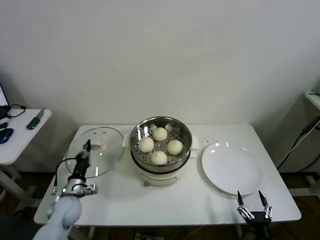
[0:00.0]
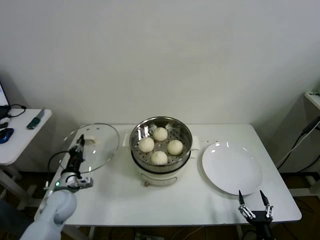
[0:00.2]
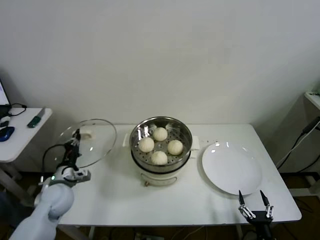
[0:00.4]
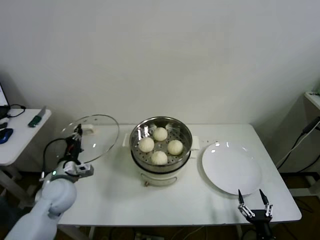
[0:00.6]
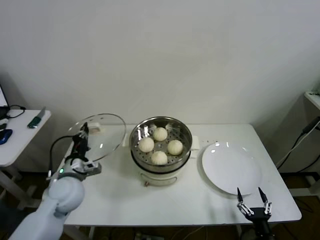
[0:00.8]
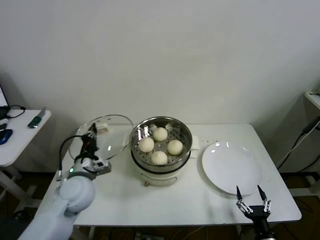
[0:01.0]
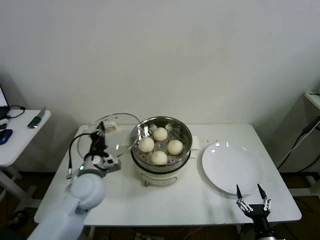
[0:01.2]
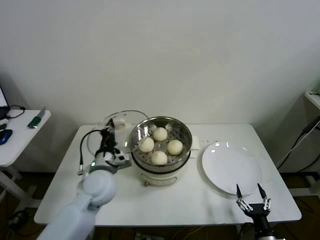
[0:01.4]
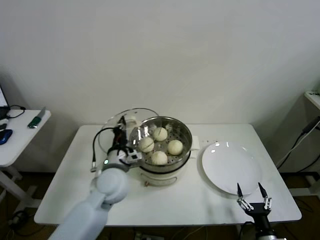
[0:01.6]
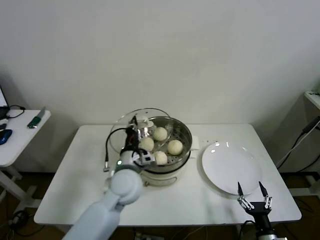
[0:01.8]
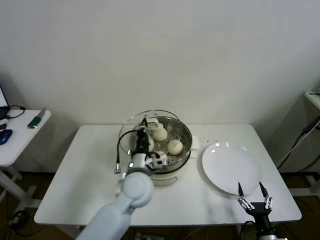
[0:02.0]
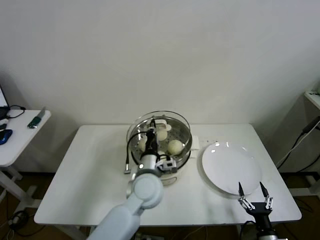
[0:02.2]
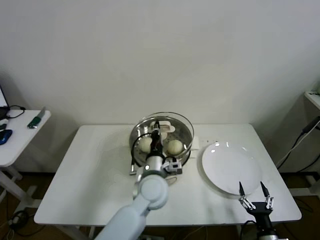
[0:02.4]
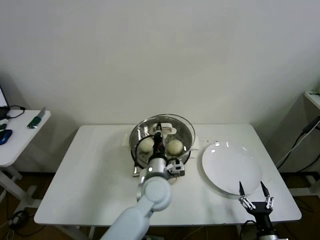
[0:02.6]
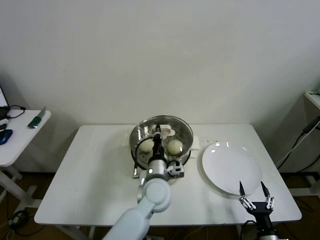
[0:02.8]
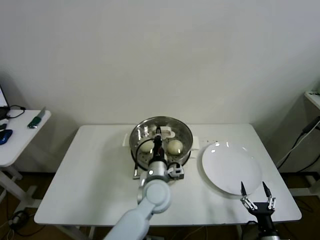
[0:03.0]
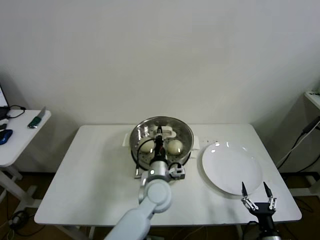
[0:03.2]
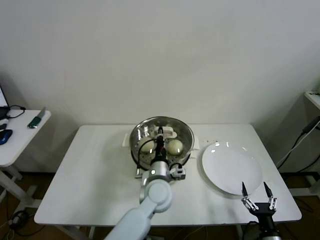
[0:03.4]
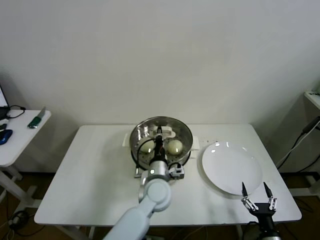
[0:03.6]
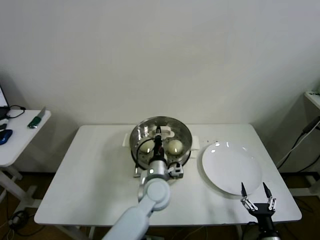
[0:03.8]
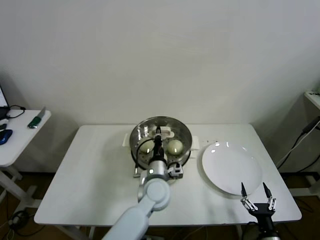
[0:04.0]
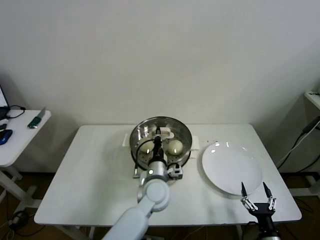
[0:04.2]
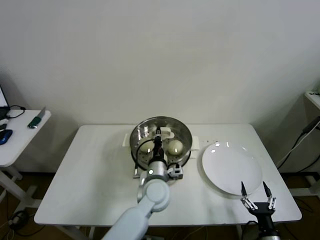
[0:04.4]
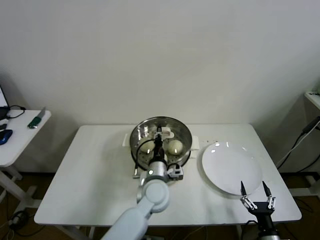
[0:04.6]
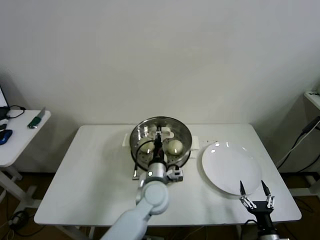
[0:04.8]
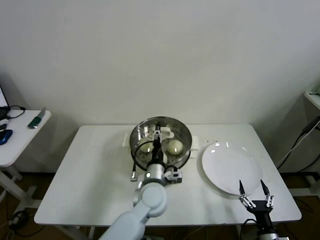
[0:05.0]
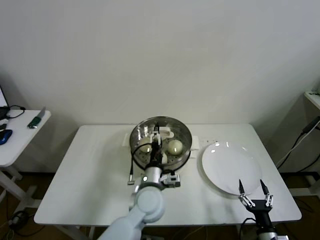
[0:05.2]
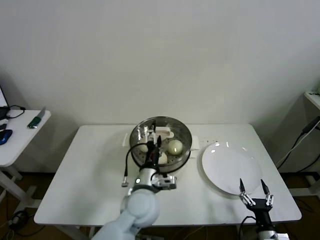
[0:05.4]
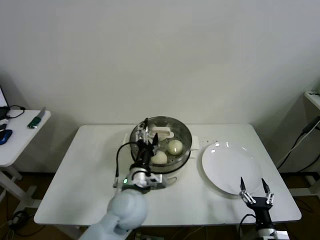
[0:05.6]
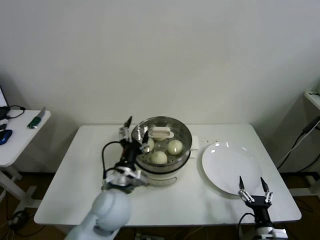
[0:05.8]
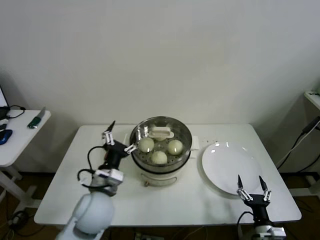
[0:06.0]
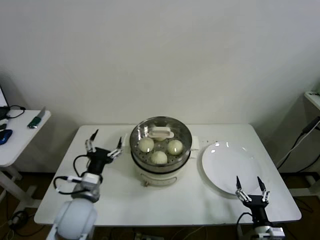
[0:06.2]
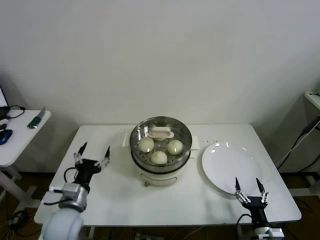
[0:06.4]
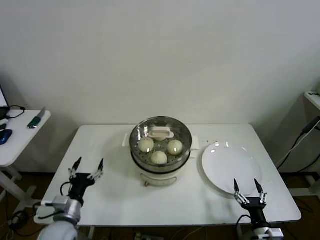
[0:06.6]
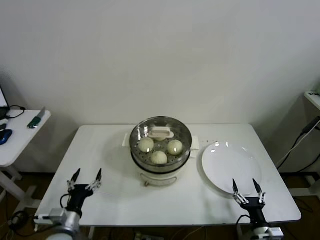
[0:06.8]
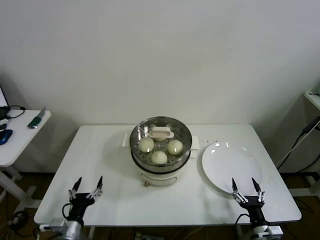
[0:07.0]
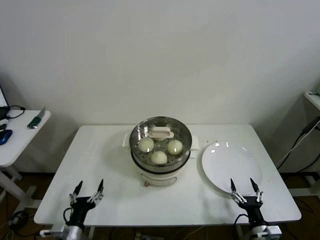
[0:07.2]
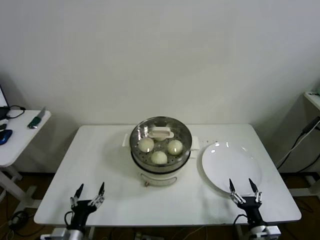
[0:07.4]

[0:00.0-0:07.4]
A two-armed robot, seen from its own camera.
Step, 0:00.0 to 0:04.6: Place the pot lid on the steamer with left gripper.
0:00.0 to 0:01.4: The left gripper moves upward and to the right, roughly 25 cm.
0:01.4 to 0:03.0: The left gripper is displaced to the right by roughly 20 cm.
0:03.0 to 0:04.4: The grippers move only a little.
0:04.4 to 0:06.0: The left gripper travels to the left, upward and backward by some 15 cm, and opens up.
0:06.0 to 0:07.4: The left gripper goes roughly 25 cm downward, to the left and backward.
